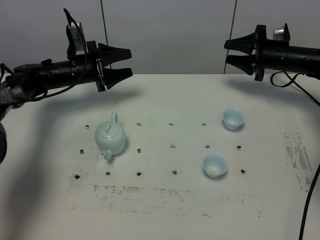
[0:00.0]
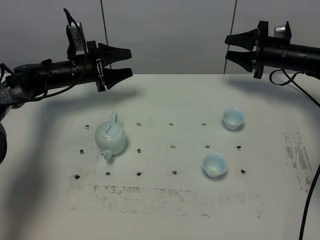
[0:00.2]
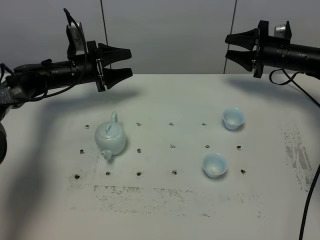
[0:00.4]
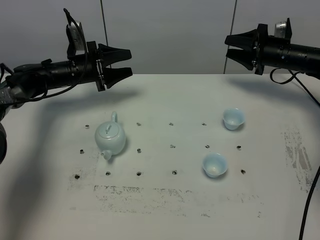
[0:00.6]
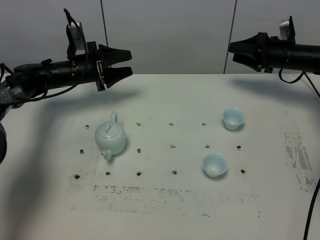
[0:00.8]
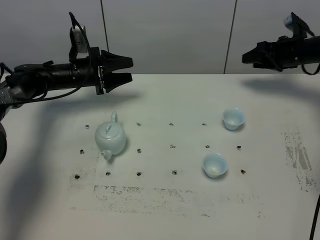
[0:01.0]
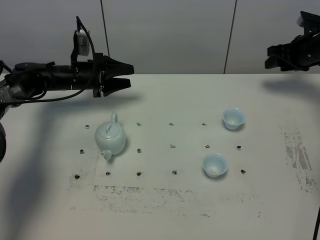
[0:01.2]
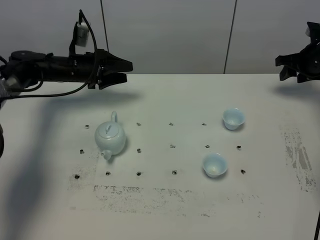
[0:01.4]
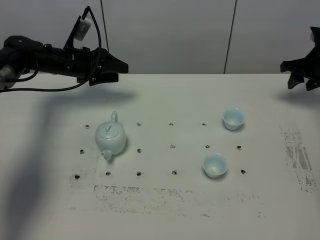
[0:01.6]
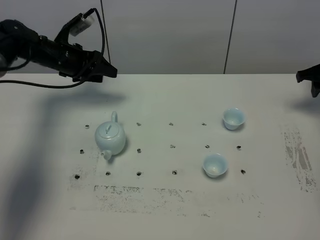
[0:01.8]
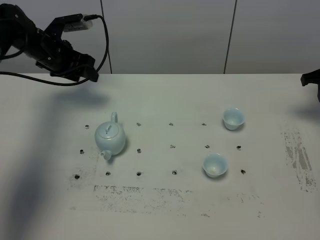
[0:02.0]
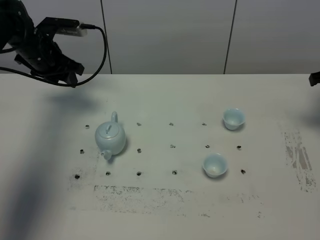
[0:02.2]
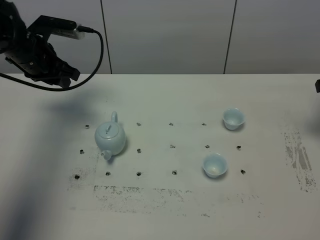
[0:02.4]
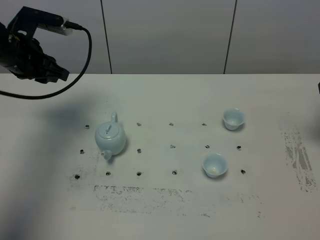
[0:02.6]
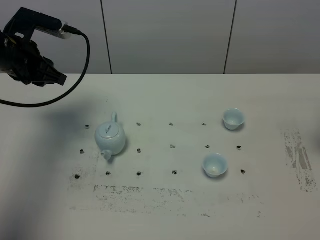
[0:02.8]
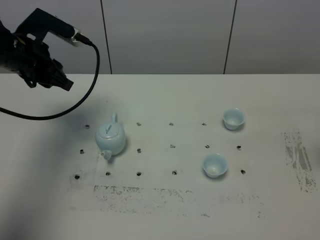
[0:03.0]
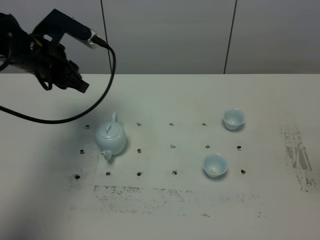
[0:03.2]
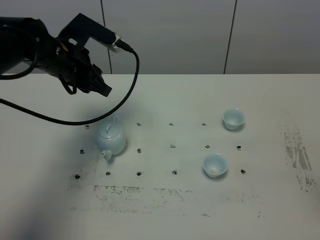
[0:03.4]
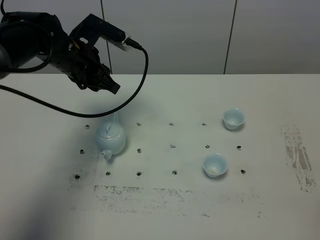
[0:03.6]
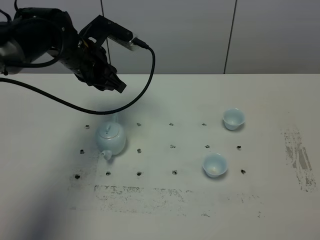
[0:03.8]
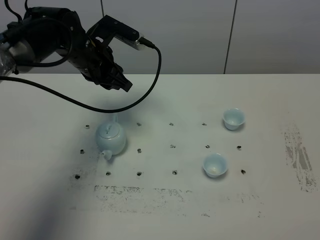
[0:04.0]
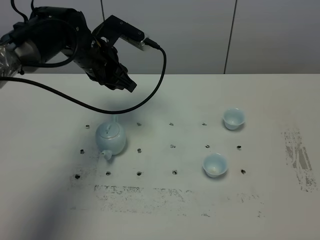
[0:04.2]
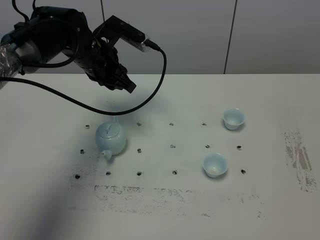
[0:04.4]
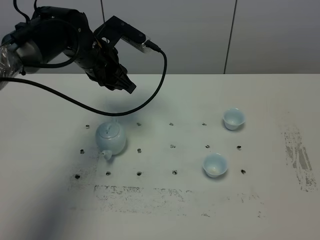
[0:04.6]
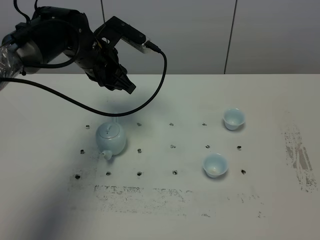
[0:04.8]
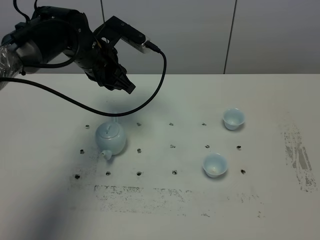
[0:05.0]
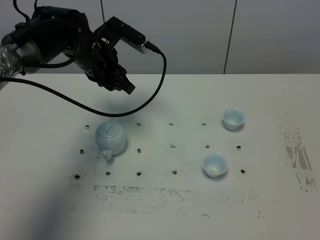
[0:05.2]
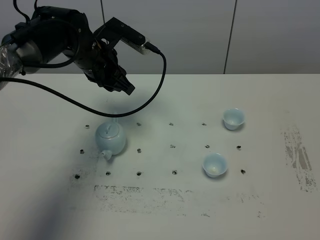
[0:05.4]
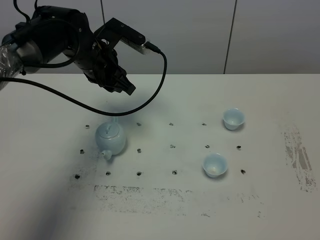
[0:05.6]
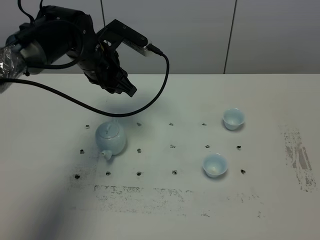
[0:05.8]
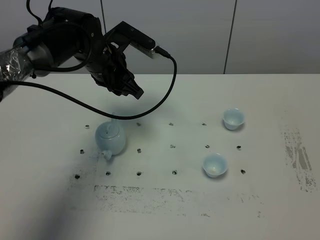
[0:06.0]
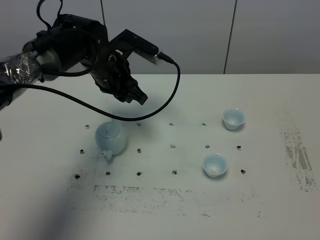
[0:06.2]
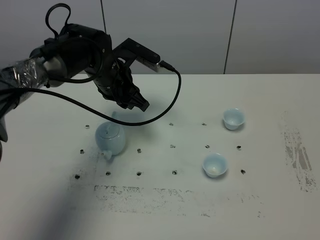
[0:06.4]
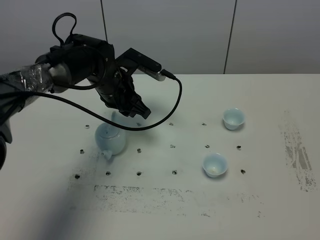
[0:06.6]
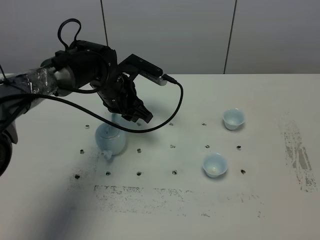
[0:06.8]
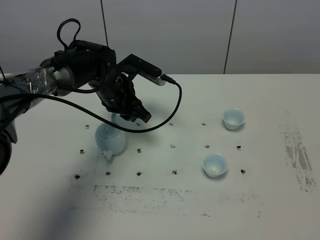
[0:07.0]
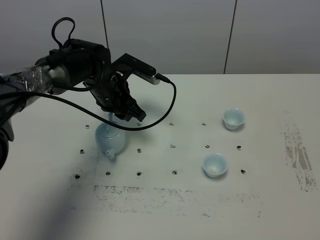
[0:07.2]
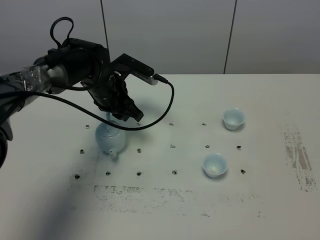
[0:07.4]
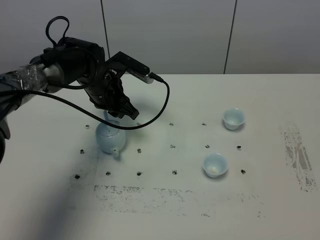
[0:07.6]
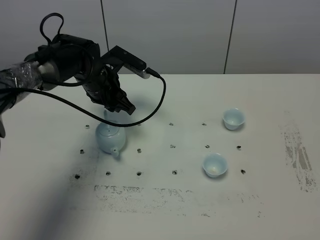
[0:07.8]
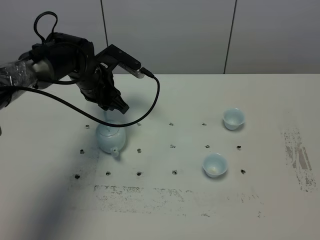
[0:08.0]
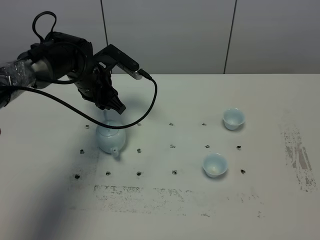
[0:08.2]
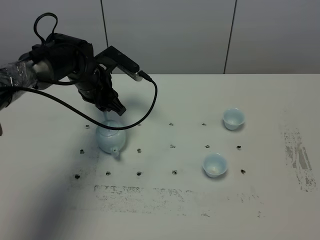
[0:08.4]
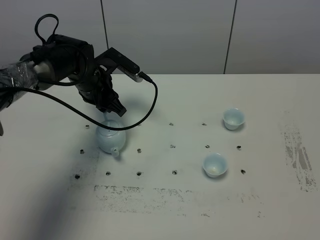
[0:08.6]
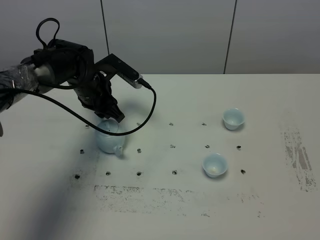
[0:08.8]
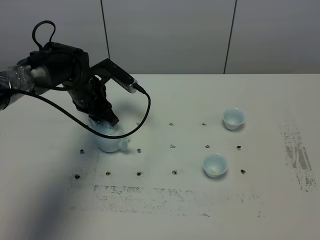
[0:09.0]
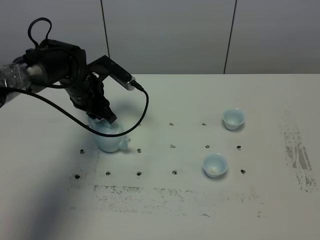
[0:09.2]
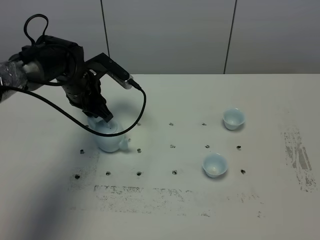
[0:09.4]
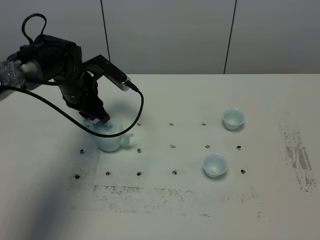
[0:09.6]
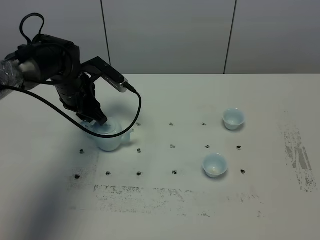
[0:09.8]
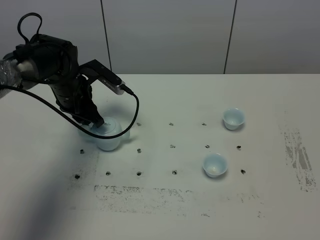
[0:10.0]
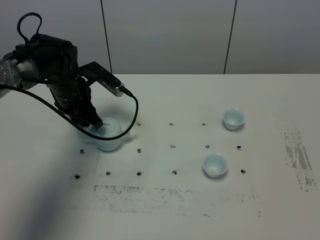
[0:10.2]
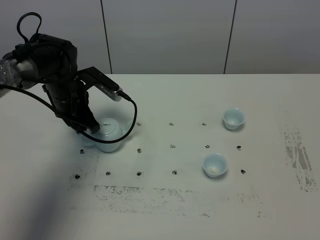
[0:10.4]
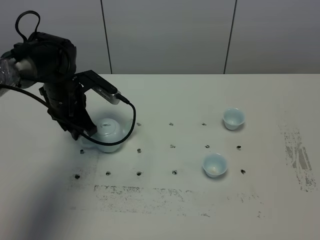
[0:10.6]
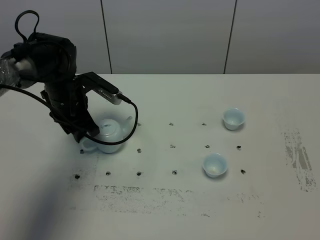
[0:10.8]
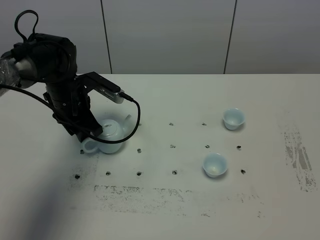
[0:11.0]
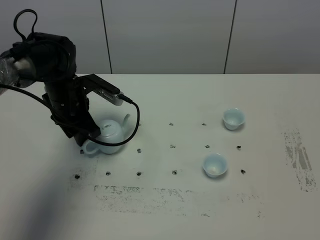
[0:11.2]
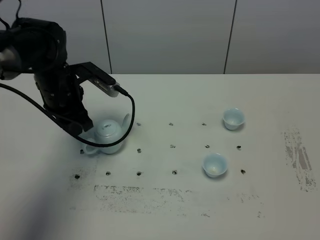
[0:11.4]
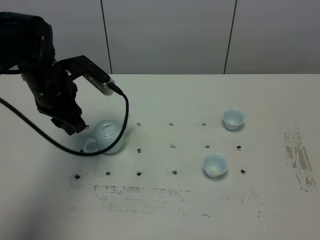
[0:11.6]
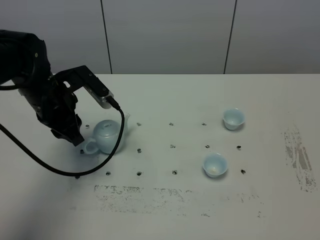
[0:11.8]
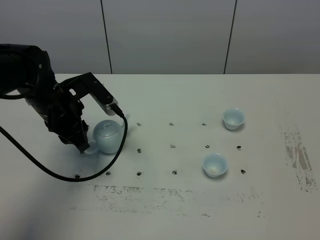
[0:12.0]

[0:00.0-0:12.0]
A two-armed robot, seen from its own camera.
Task of the whole recording: grasp the blue porcelain teapot and pour the tea into the two blue porcelain teacups one by one, put the blue porcelain teapot back in its original place.
0:00.0 to 0:01.6: The right gripper travels to the right by roughly 10 cm.
0:01.6 to 0:03.0: The right gripper is displaced backward and upward by roughly 25 cm, and closes. Meanwhile the left gripper heads backward and upward, covering some 15 cm, and closes its fingers.
0:03.0 to 0:04.4: The right gripper travels backward by about 30 cm, while the left gripper goes some 10 cm to the right.
0:04.4 to 0:06.0: The grippers move only a little.
0:06.0 to 0:07.6: The left gripper shifts about 5 cm downward.
0:07.6 to 0:09.0: The grippers make only small movements.
0:09.0 to 0:10.4: The grippers stay close to where they were, moving slightly.
0:10.4 to 0:12.0: The left gripper is displaced backward by about 5 cm.

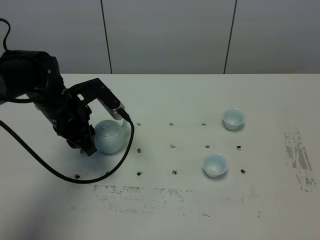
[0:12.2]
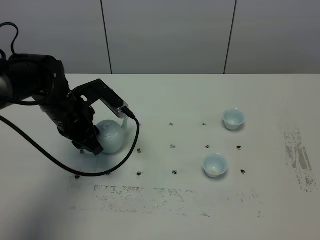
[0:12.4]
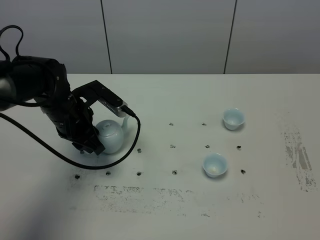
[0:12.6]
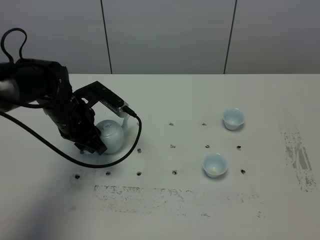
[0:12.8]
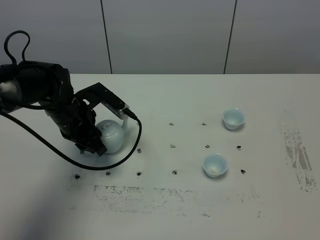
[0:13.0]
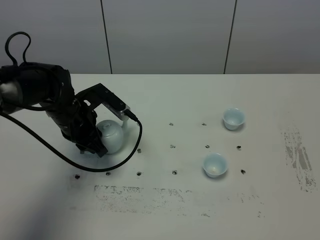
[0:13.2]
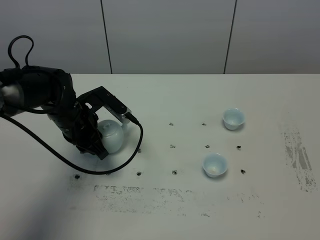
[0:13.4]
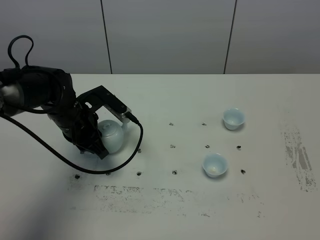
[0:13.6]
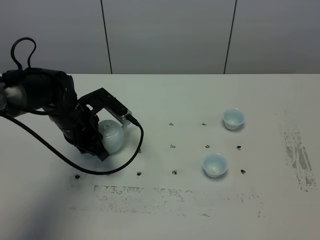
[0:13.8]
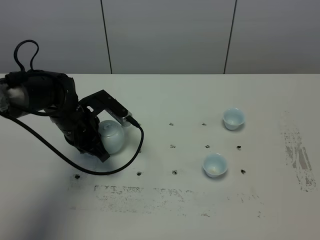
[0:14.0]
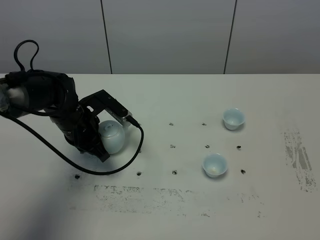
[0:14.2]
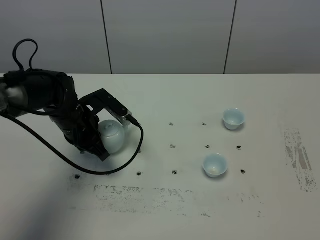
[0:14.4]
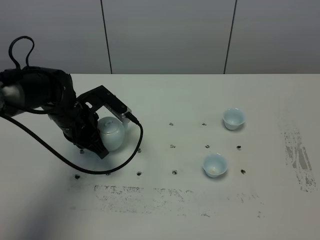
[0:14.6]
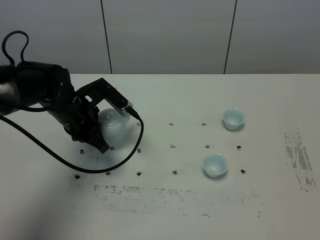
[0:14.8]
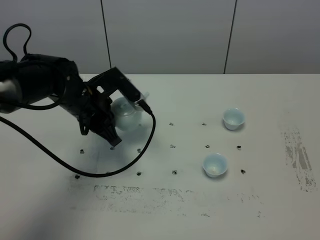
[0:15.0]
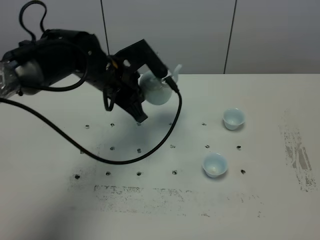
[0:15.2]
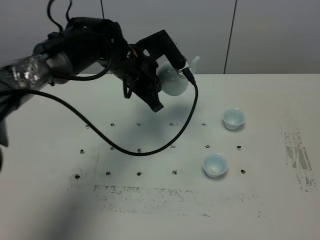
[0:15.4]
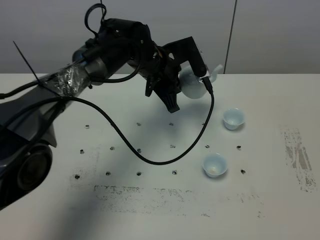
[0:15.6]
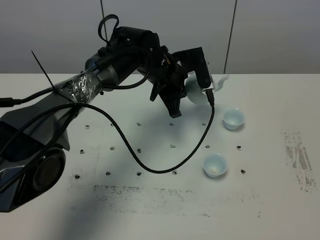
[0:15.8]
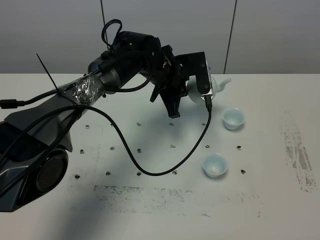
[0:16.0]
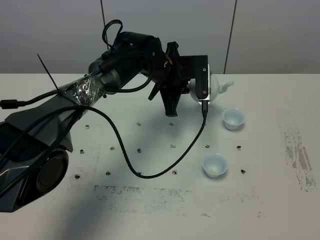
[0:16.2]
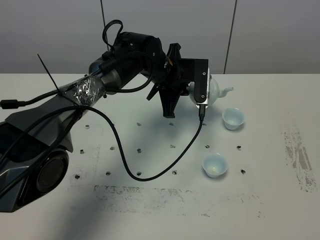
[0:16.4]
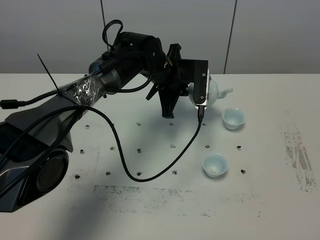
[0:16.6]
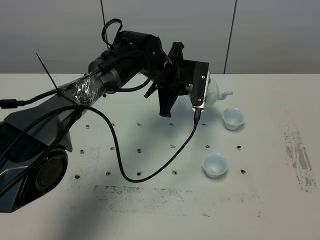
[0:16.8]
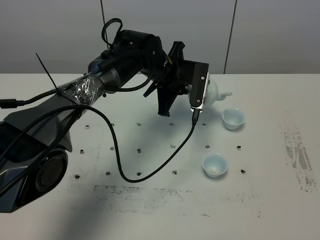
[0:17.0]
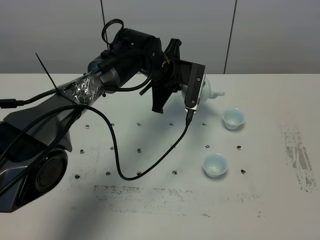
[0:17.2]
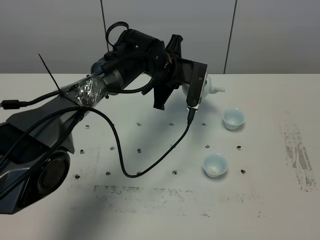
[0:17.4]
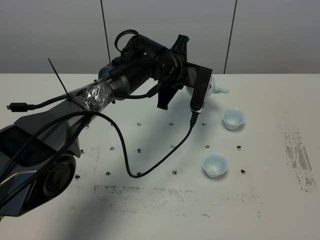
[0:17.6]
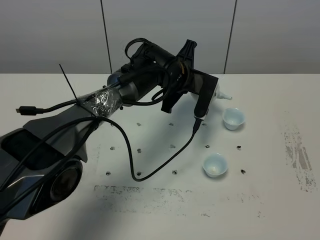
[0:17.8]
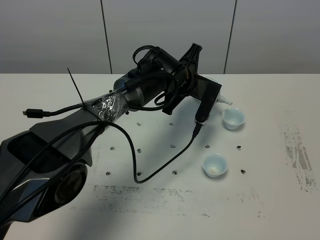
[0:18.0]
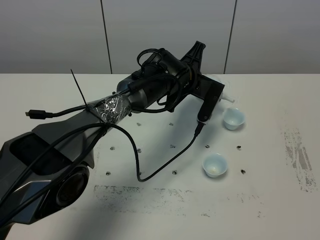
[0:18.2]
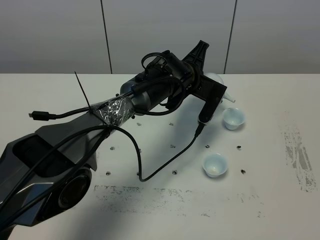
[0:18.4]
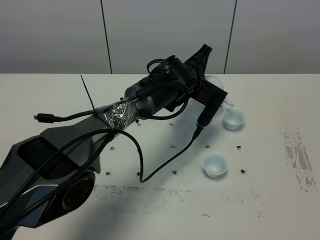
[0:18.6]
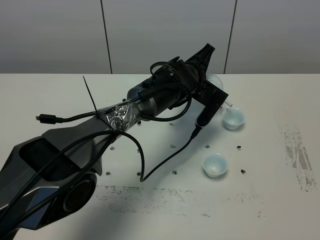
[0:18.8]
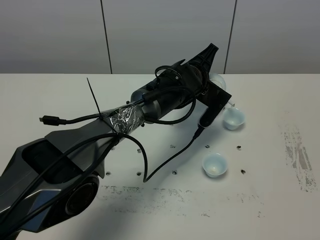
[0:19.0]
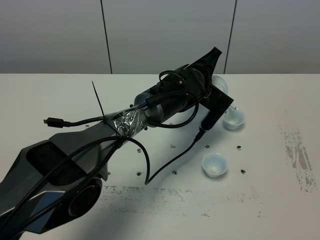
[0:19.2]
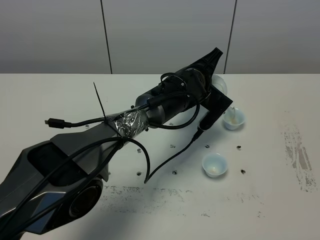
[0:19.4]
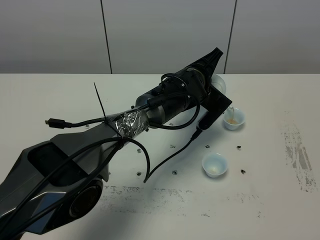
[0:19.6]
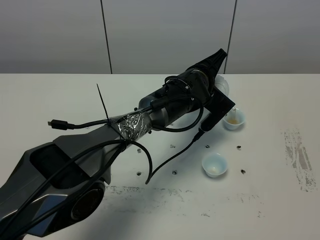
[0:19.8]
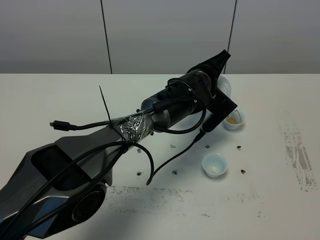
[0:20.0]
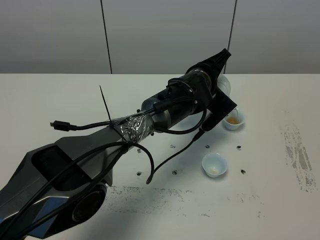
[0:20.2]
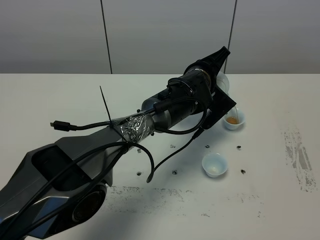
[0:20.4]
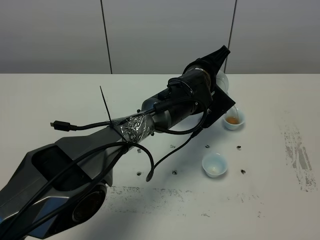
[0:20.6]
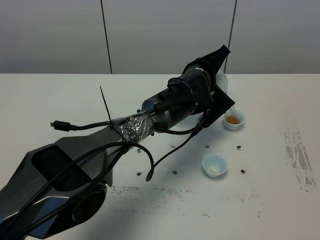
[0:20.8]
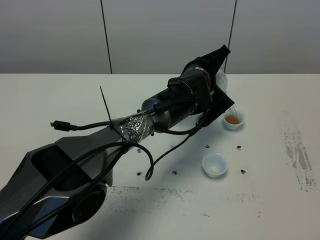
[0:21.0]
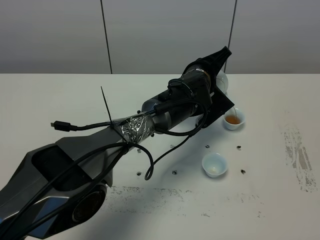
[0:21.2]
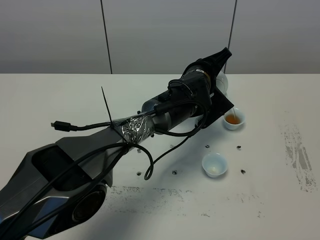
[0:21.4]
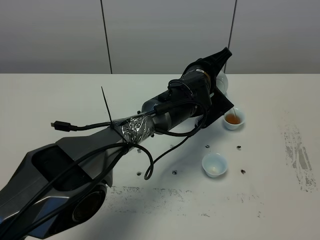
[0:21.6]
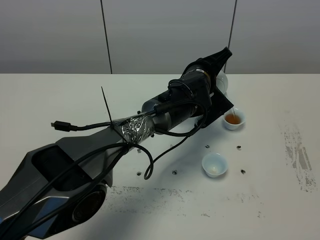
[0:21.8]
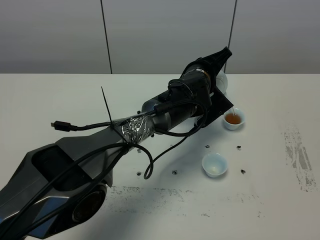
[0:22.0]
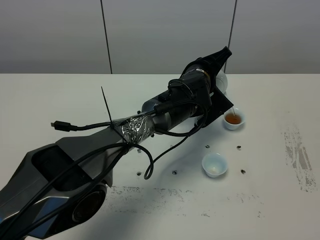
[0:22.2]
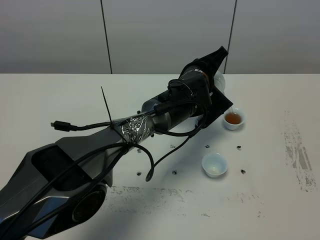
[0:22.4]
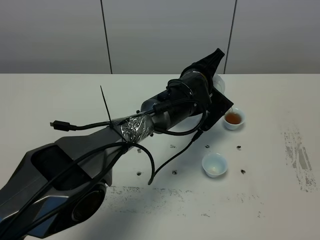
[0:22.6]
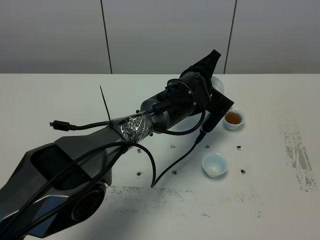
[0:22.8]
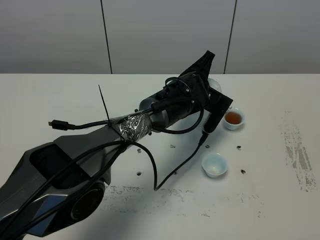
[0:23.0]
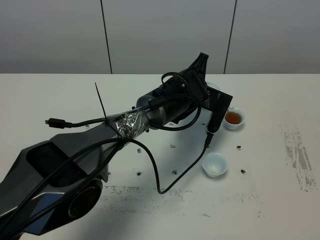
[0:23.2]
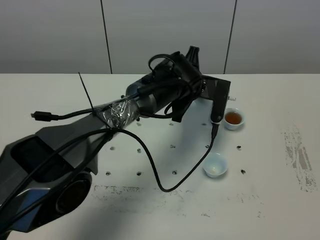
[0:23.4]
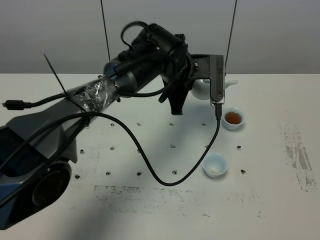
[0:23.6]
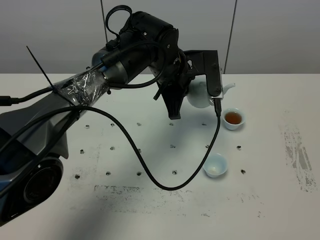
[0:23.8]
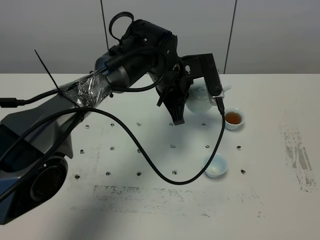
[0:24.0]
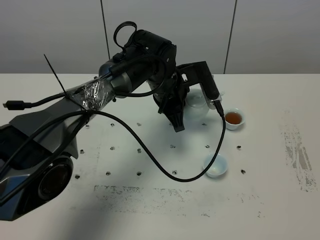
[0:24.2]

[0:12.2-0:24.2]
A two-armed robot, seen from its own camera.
Task of the whole recording: grasp the blue porcelain teapot and pour the tea into the two blue porcelain teacups one by one, put the blue porcelain teapot back in its original place.
Step, 0:12.2 to 0:14.6: Pick up the teapot with the left gripper.
Step, 0:15.0 to 0:23.2: Pour tea into the teacup with the left gripper.
0:12.2 to 0:13.8: The grippers make only small movements.
0:13.8 to 0:15.2: The left gripper goes some 10 cm upward and to the right.
0:15.2 to 0:16.6: The left gripper goes roughly 10 cm to the right and forward.
0:19.8 to 0:22.6: There are only small adjustments of the grippers.
0:22.6 to 0:24.2: The left gripper travels to the left by roughly 5 cm, and travels upward and back again, approximately 5 cm each way.
